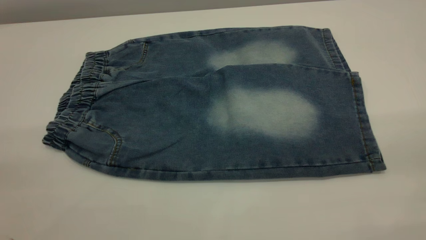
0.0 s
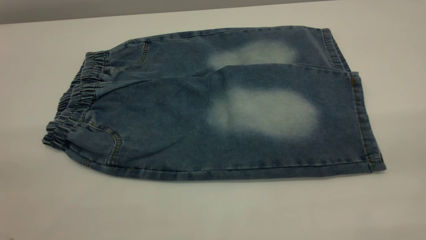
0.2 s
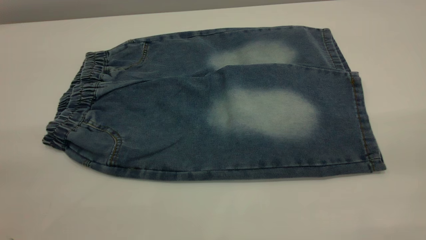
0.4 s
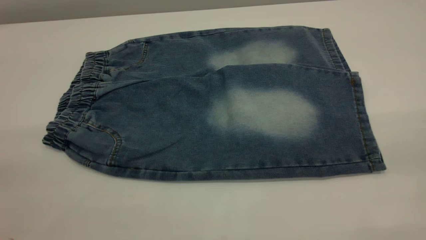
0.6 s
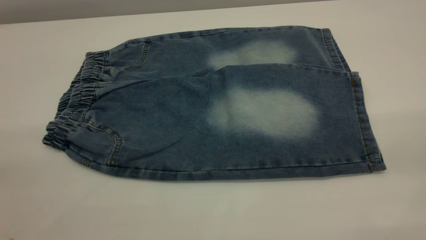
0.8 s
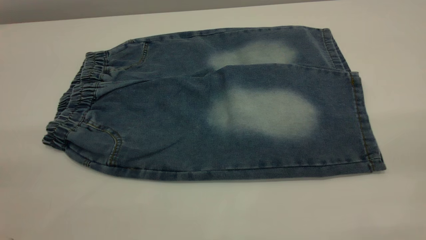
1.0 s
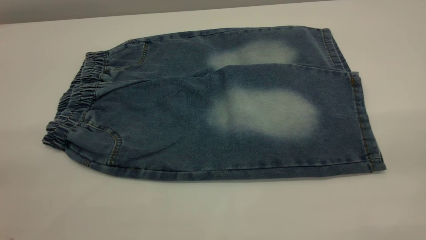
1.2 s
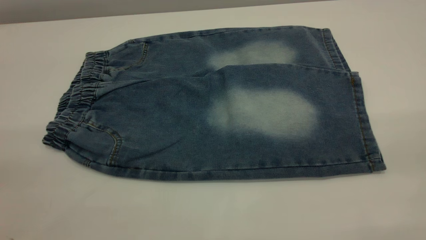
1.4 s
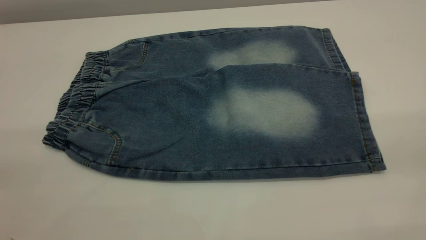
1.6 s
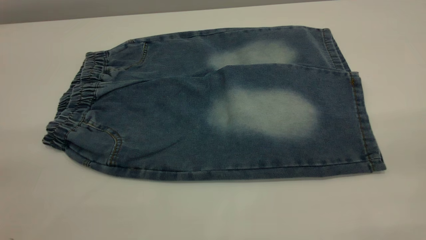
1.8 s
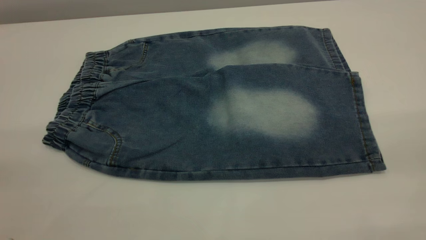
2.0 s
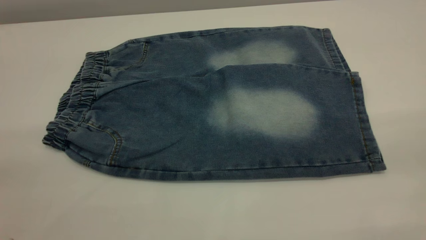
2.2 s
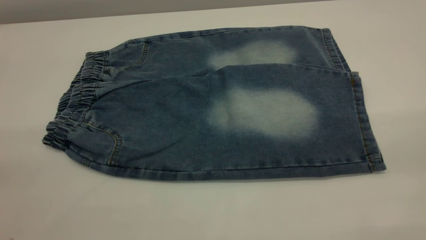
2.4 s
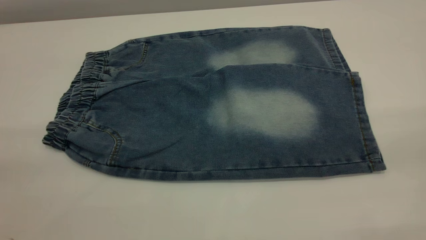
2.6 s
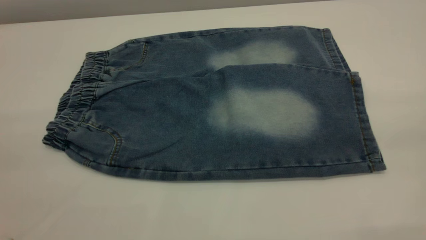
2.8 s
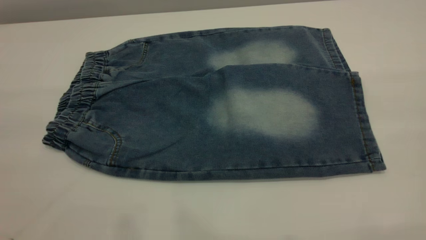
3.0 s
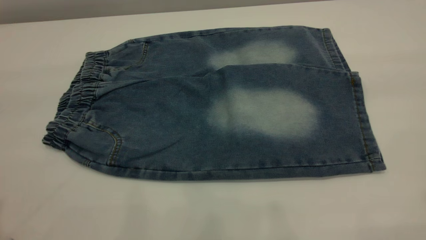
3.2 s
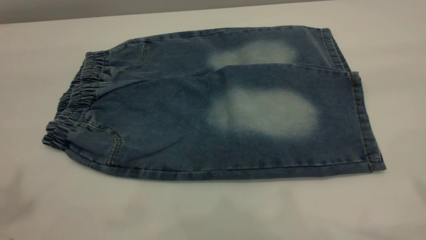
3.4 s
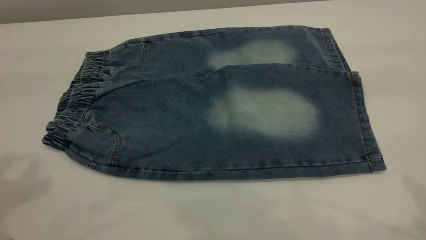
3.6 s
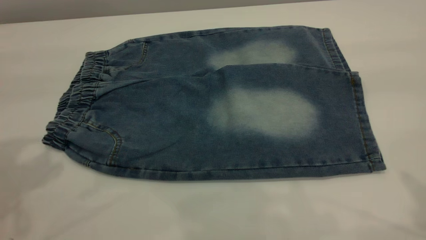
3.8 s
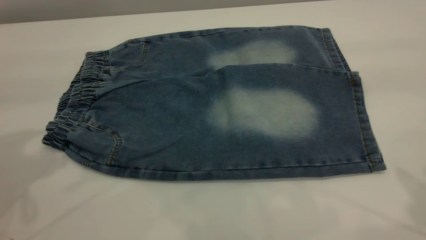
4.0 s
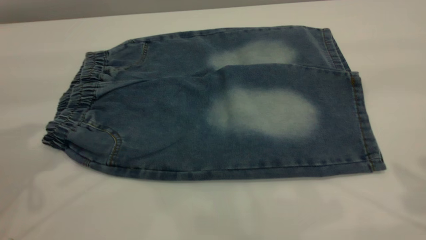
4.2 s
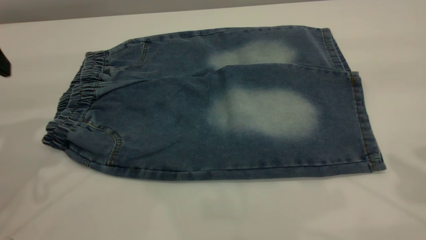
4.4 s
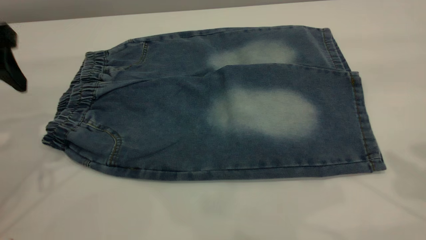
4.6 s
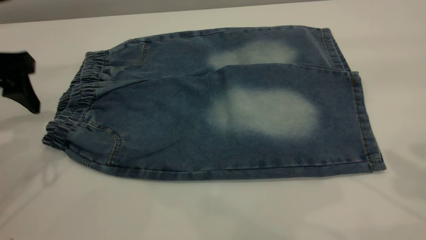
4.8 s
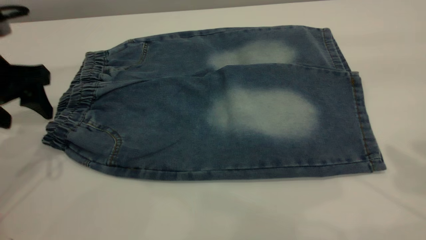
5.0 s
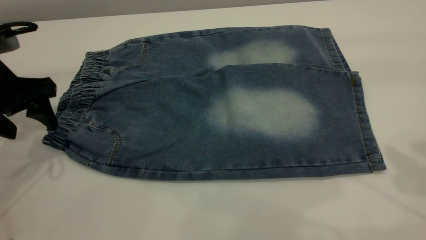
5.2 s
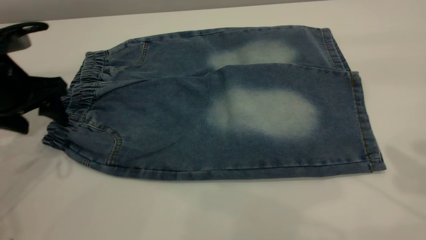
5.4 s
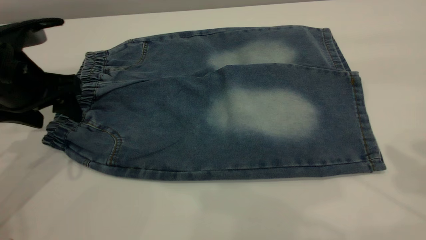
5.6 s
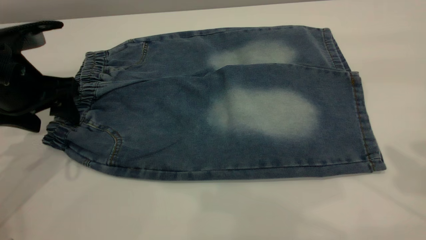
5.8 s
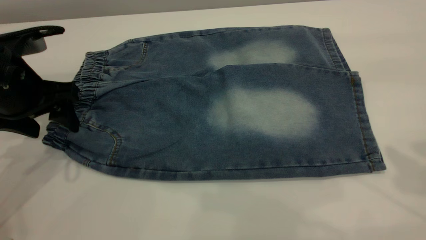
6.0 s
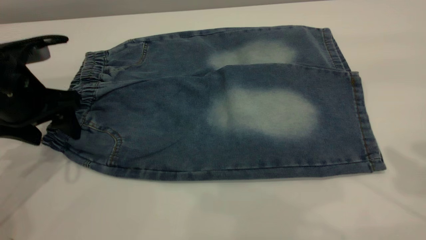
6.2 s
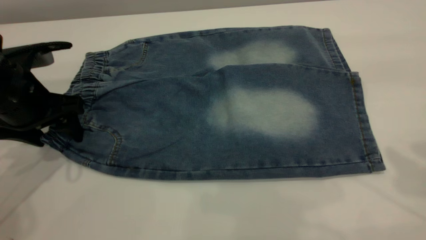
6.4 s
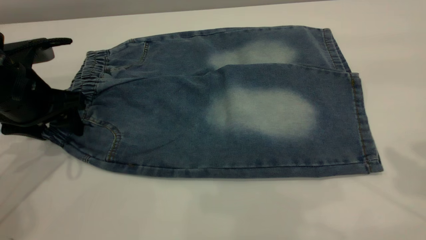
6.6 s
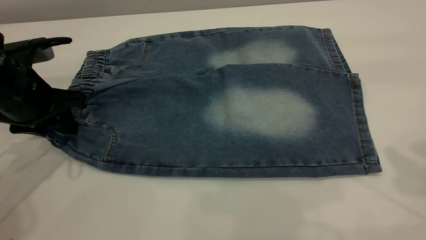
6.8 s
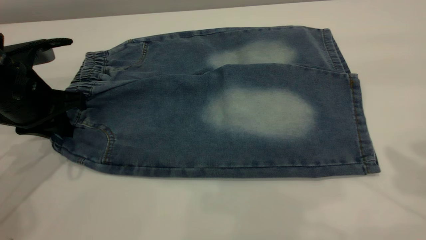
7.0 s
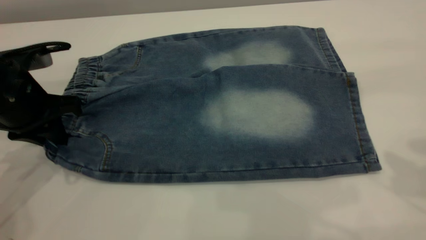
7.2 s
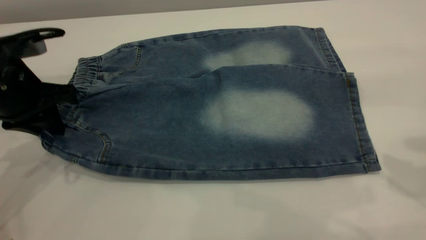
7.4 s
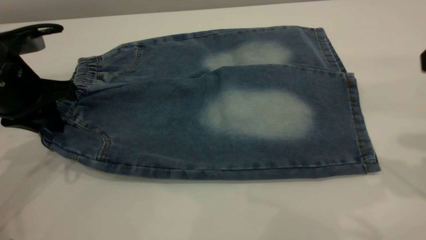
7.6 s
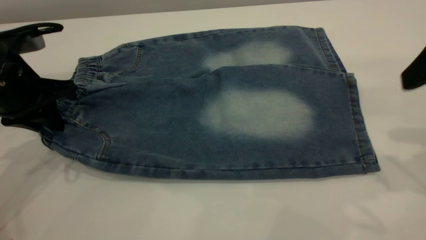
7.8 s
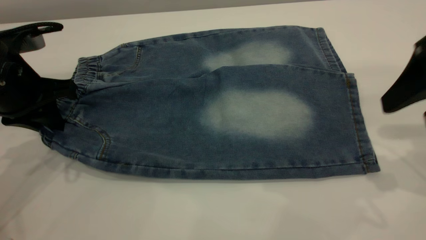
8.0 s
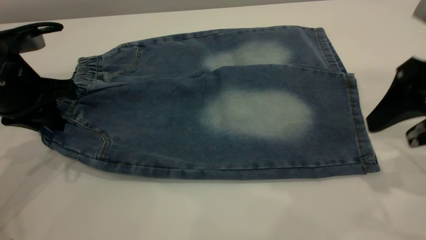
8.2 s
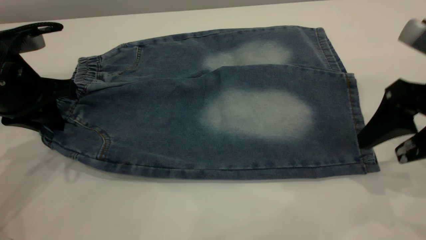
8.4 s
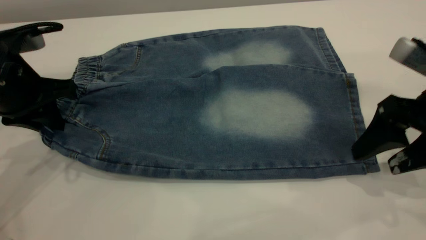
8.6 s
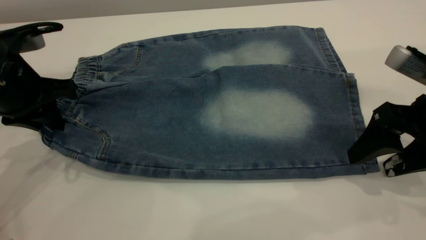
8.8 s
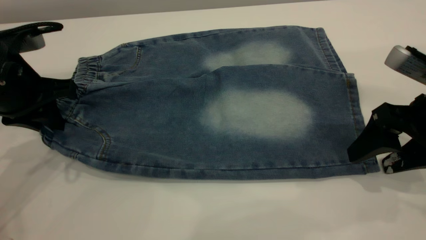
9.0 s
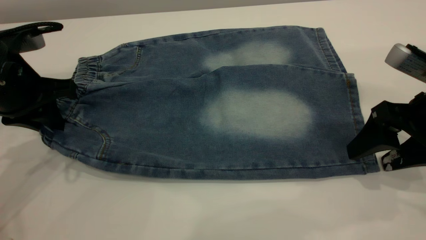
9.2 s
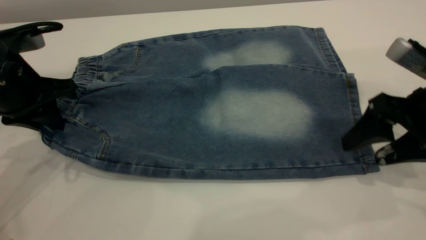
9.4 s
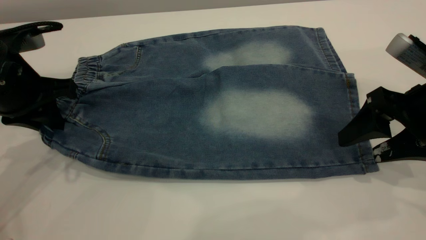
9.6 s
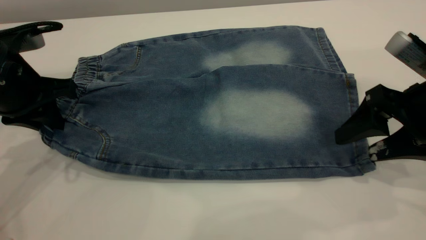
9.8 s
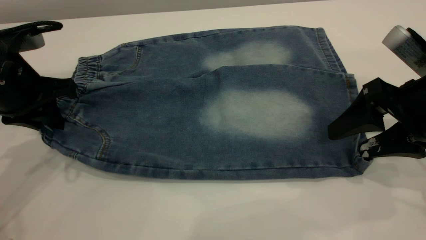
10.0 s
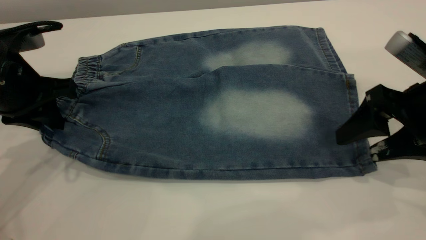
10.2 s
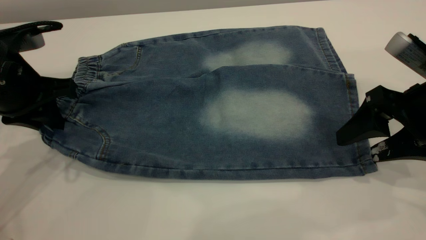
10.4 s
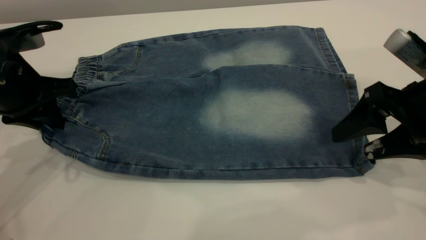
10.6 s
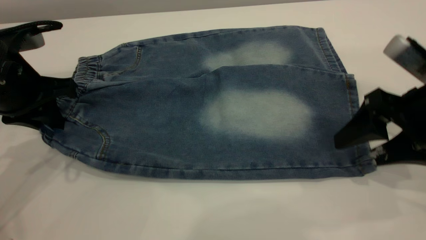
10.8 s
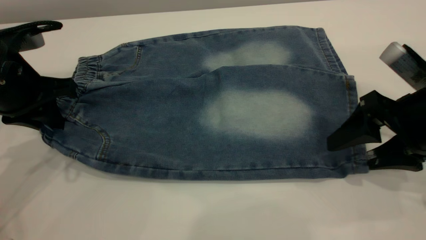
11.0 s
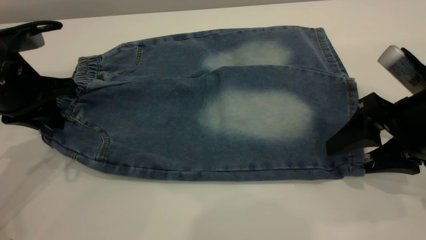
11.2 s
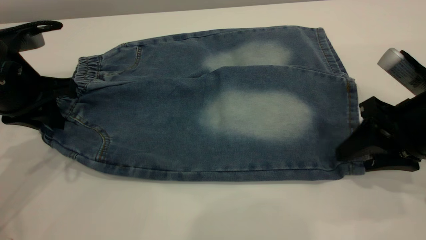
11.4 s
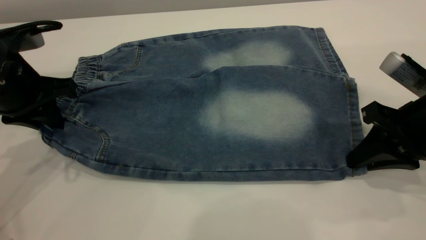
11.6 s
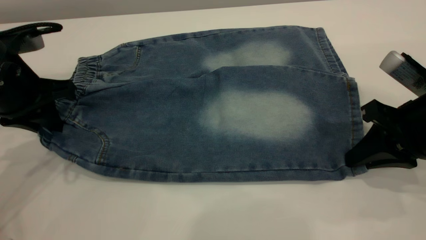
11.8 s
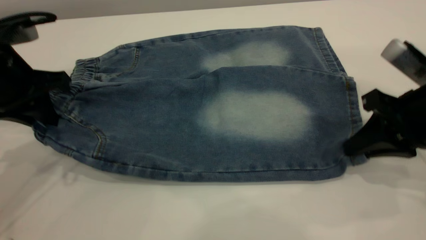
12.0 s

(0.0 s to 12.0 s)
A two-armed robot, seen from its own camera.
0.0 s - 1.6 s: The two grippers keep their place.
4.4 s - 6.0 s: The left gripper goes roughly 10 cm downward.
6.0 s - 7.6 s: The left gripper closes, while the right gripper shifts approximately 10 cm downward.
7.6 s - 9.0 s: The right gripper moves downward, some 15 cm.
9.0 s - 10.4 s: The grippers stay close to where they were, moving slightly.
10.4 s - 12.0 s: The right gripper closes.

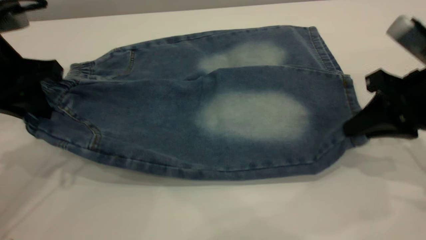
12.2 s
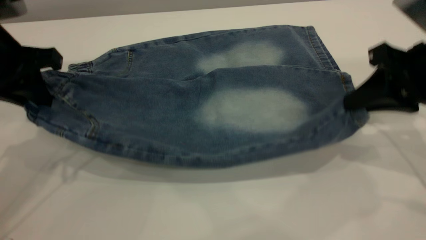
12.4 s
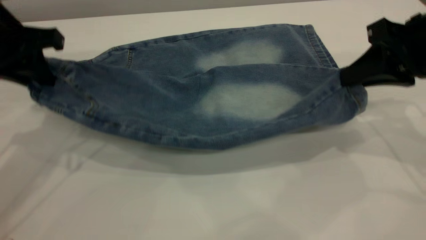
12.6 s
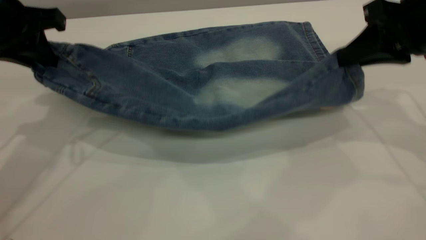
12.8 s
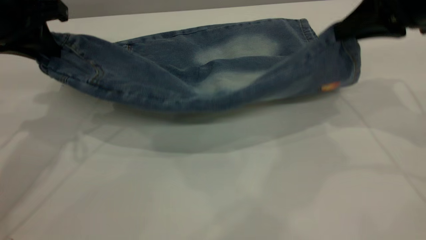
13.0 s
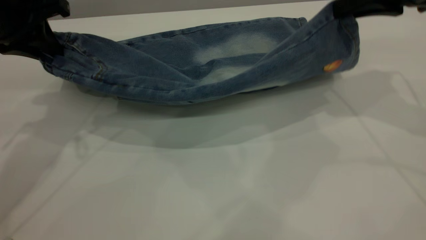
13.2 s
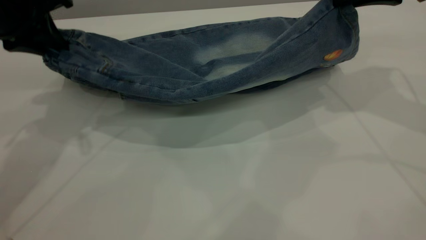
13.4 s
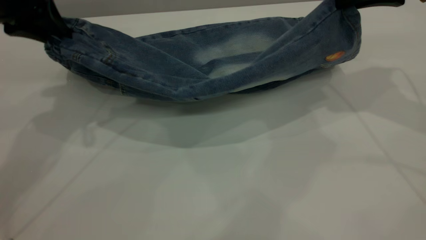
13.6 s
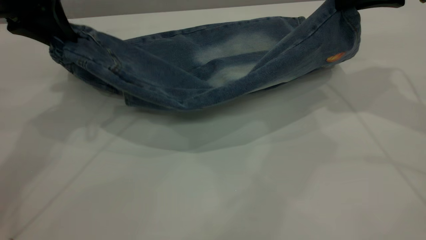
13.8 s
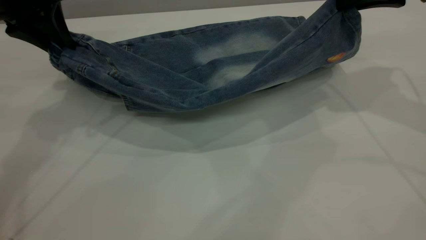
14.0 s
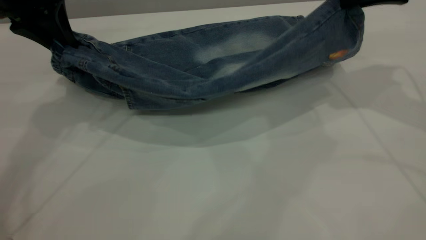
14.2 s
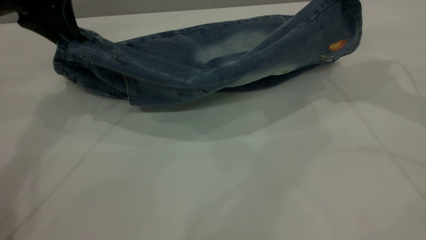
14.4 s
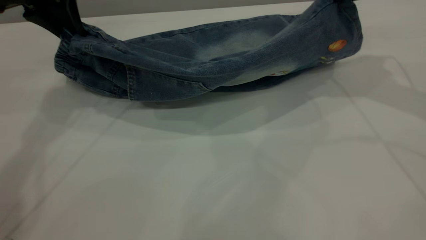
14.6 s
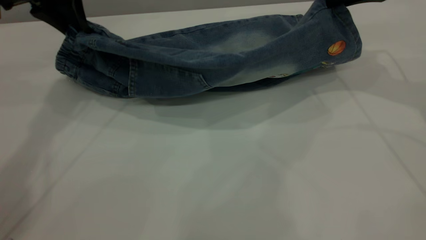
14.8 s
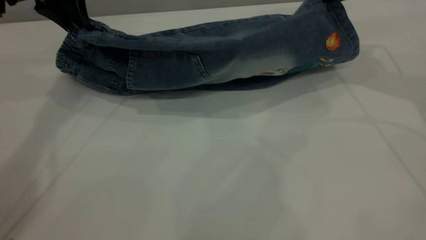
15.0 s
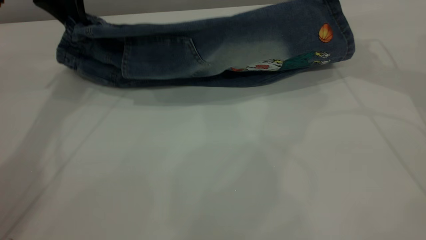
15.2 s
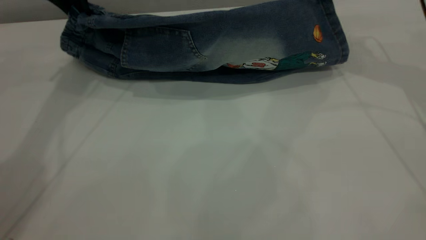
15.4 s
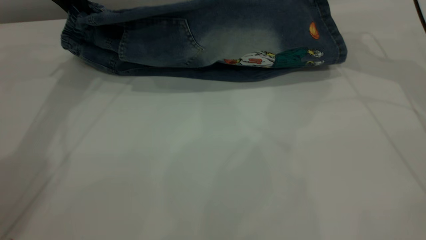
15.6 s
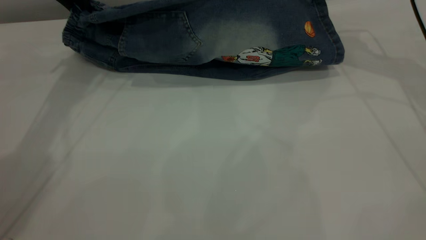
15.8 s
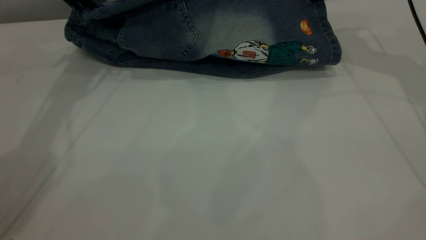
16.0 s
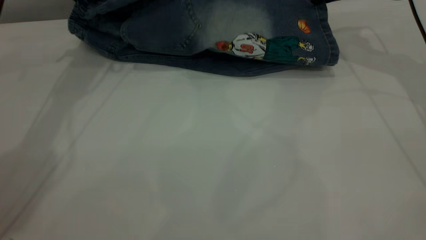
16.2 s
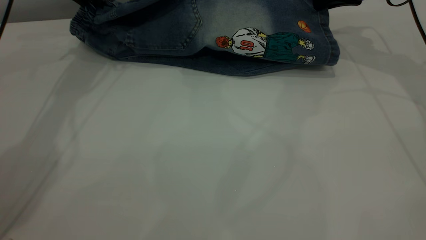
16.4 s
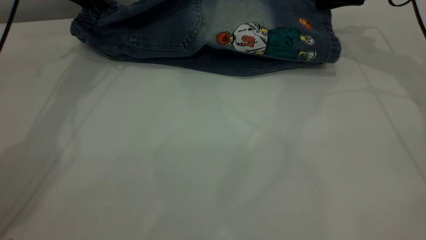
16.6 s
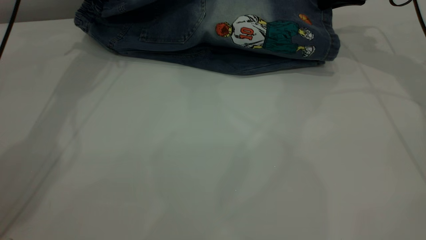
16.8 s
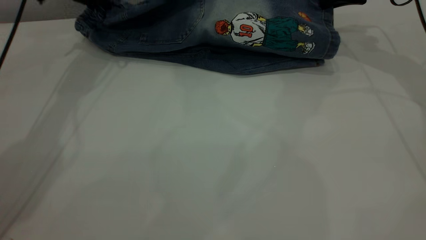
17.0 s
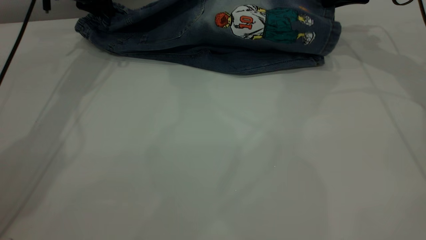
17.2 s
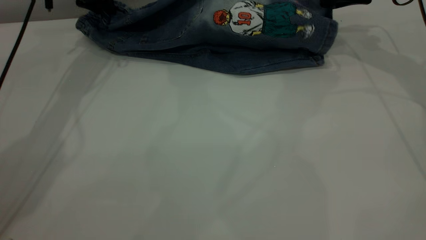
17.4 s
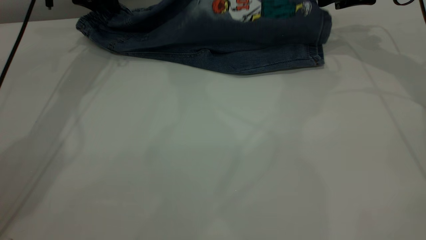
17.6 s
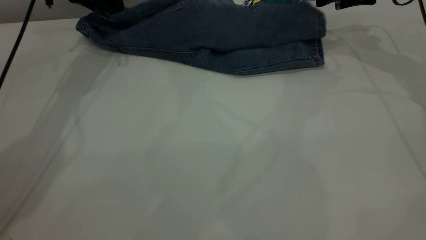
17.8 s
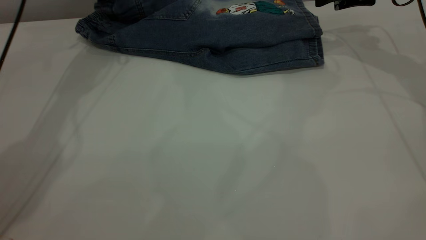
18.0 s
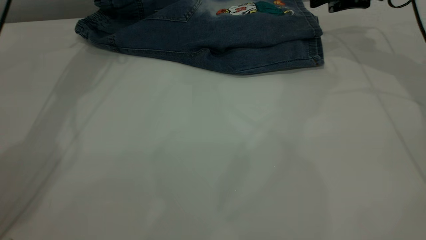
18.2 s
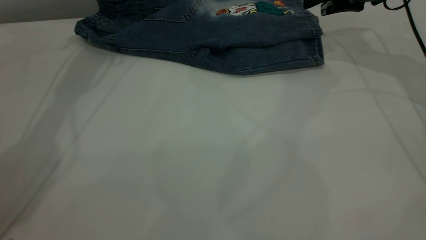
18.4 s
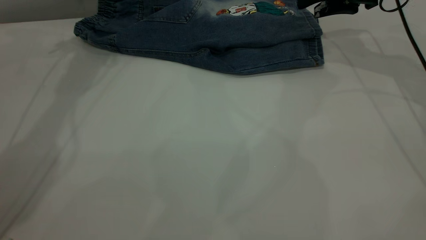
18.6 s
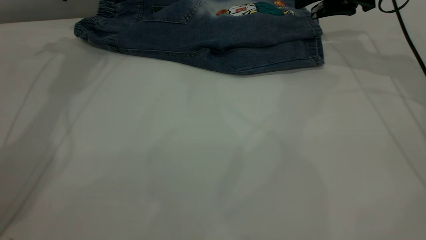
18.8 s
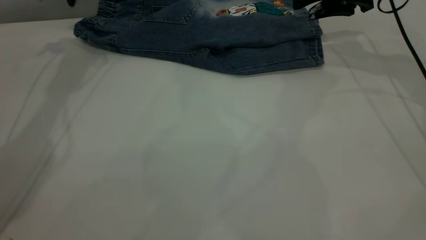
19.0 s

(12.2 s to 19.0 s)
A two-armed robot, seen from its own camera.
12.2 s - 13.6 s: The left gripper shifts roughly 10 cm forward and upward. The right gripper heads forward and upward, covering roughly 15 cm.
13.6 s - 15.0 s: The two grippers go roughly 10 cm forward.
15.0 s - 16.2 s: Both grippers travel together forward, some 5 cm.
16.2 s - 17.6 s: The left gripper is displaced downward by roughly 5 cm, and opens up; the right gripper opens.
17.6 s - 19.0 s: The left gripper shifts by about 5 cm.
